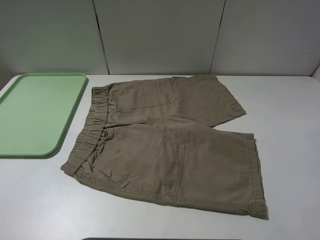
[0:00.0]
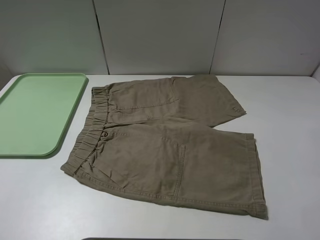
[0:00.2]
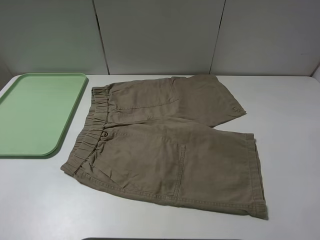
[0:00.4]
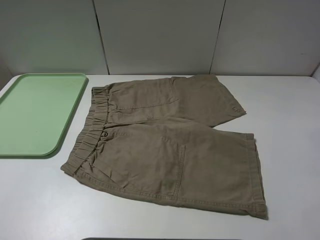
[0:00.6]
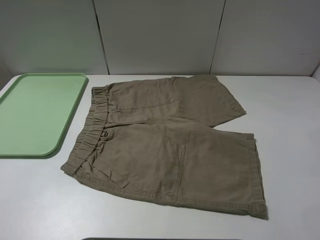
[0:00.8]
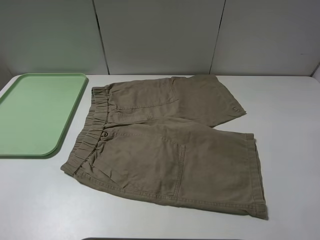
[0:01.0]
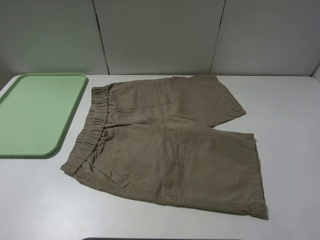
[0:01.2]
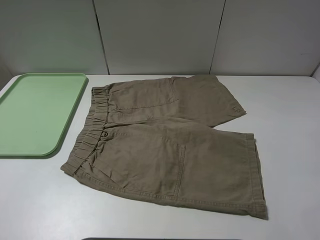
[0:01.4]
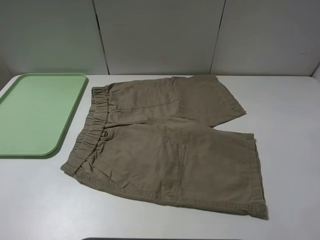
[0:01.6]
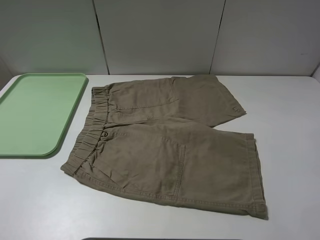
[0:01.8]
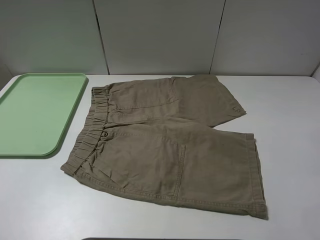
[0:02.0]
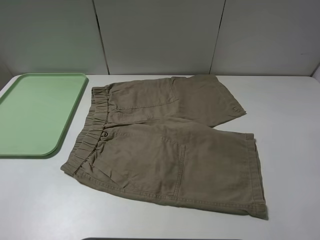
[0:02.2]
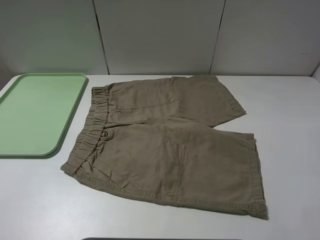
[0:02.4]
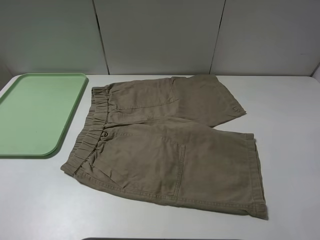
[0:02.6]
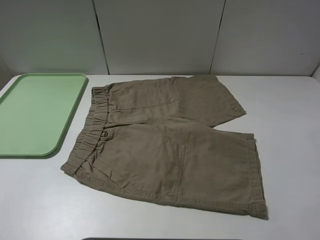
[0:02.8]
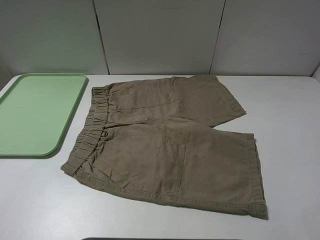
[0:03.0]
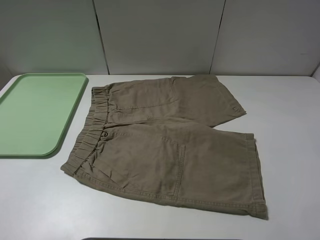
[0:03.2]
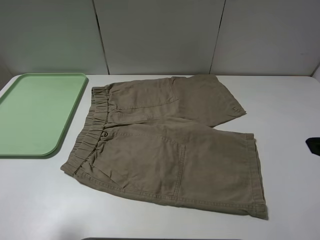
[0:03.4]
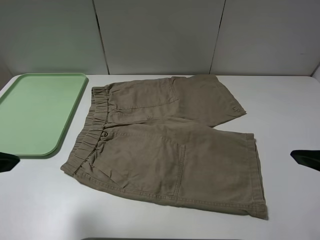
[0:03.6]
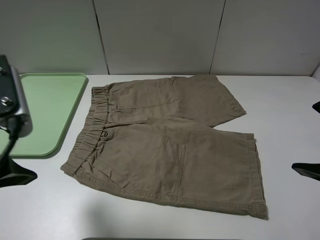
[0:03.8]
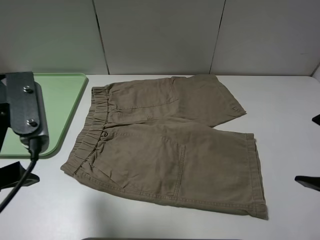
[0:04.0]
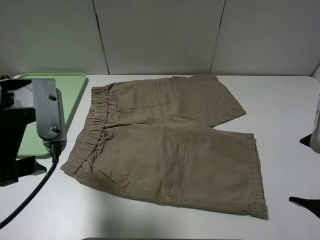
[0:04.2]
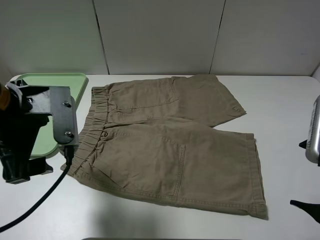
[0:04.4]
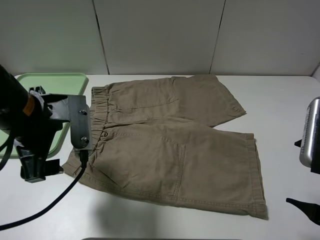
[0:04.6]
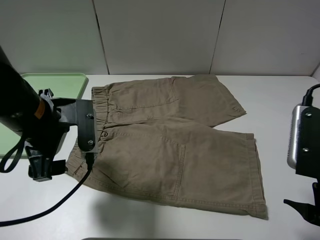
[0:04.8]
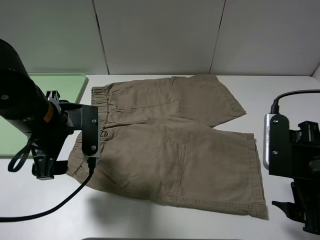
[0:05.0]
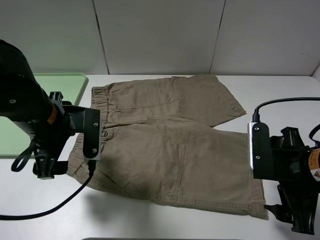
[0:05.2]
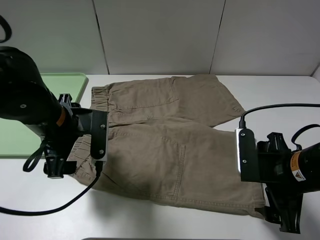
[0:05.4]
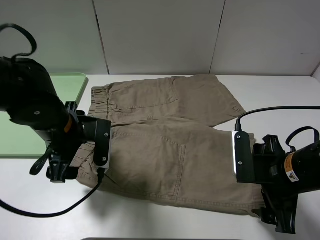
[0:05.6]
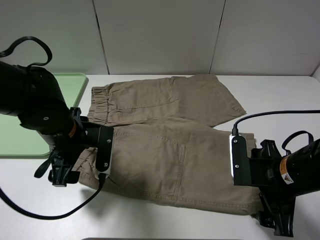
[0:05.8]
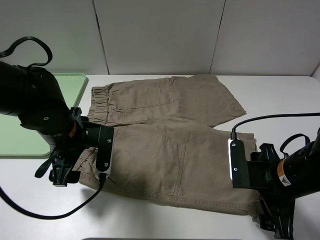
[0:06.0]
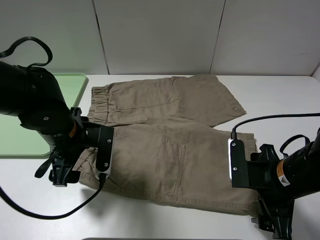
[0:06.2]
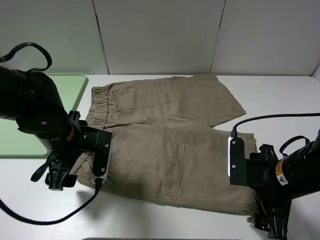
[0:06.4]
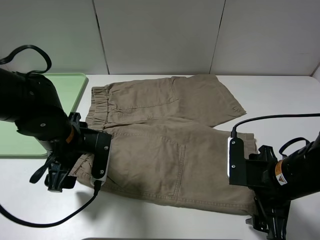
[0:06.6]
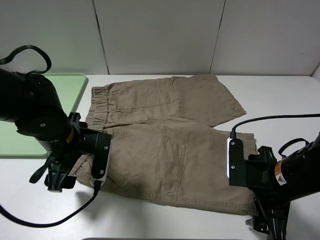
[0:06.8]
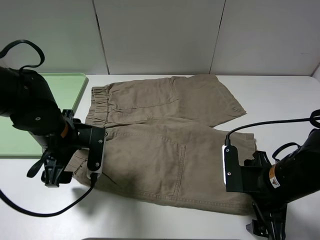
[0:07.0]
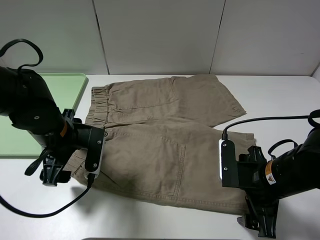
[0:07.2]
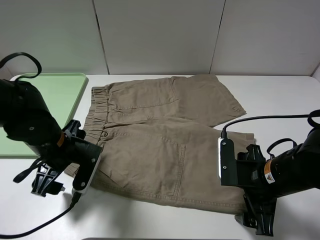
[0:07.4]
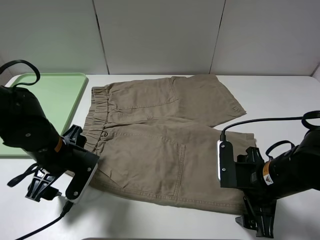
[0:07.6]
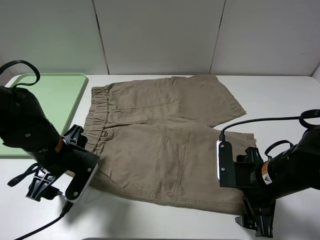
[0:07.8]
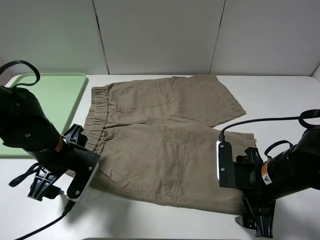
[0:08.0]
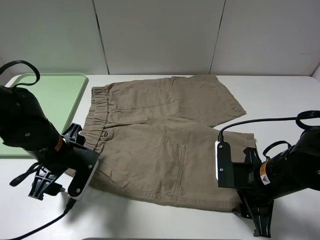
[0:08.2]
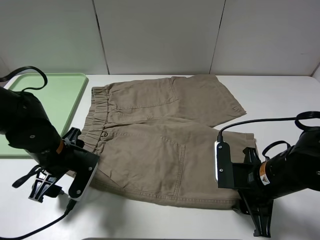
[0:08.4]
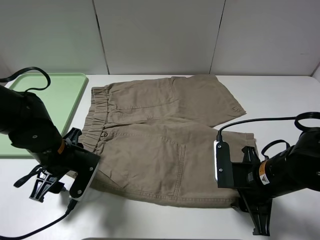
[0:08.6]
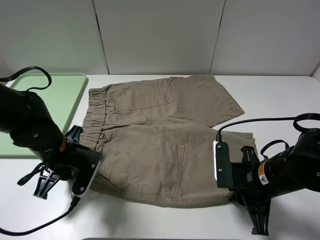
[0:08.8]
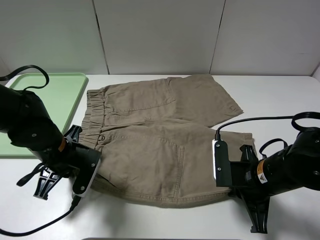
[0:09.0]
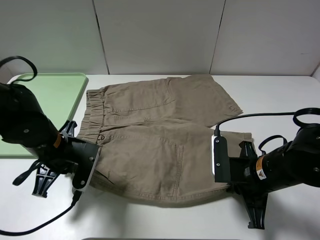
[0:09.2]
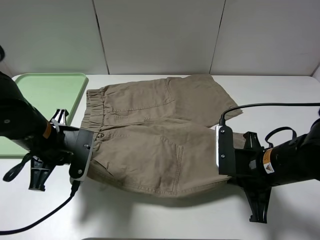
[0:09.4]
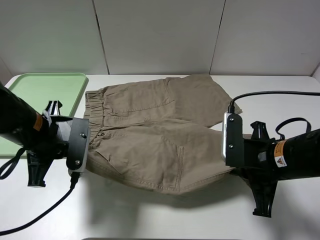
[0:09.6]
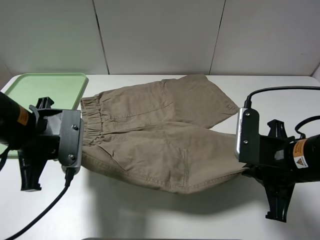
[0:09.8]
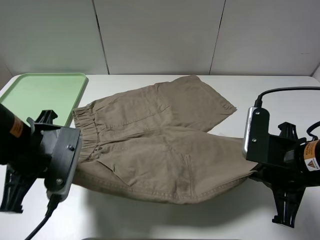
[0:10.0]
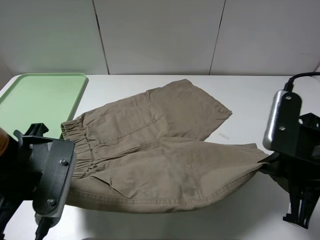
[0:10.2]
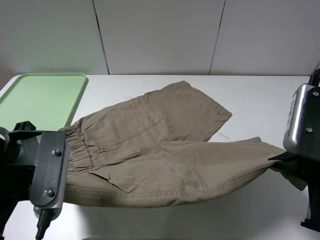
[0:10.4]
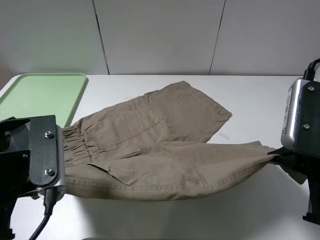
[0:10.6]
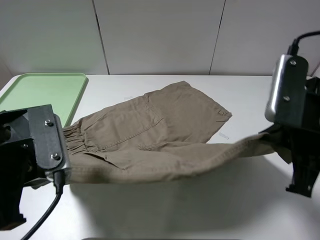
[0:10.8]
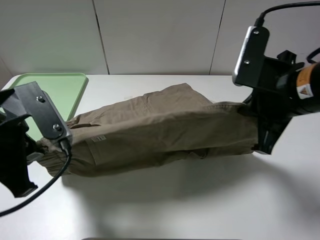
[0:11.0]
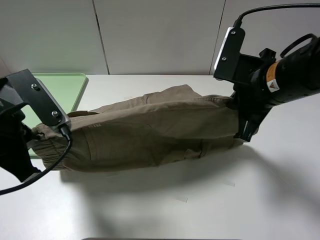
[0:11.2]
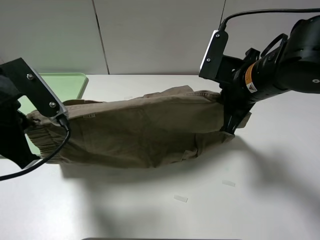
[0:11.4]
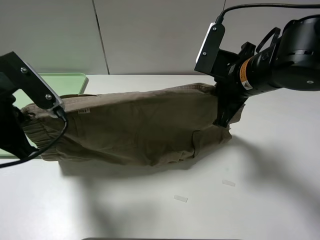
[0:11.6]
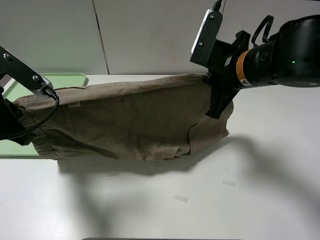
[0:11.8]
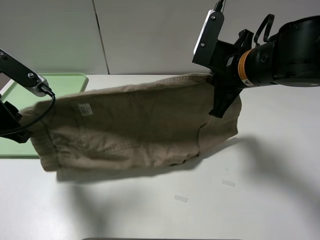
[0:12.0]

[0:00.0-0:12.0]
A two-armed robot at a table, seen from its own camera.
Task of the whole recording: fold the khaki jeans in half with two grippers, then fold them in half again, and use the left claw to place the folded fold khaki jeans on the tray.
Step, 0.0 to 9.0 s: Grasp the khaki trousers with the left gripper.
Step, 9.4 to 12.0 s: Fold the khaki trousers upwards with the left gripper.
0.0 to 1.6 s: Both grippers stay put.
3.0 to 4.4 s: The right gripper heads downward and forward, covering some 10 cm. The left gripper moves forward and to the right, roughly 20 cm.
4.4 to 6.0 s: The right gripper goes some 10 cm downward and forward, while the left gripper travels downward by roughly 10 cm.
7.6 to 9.0 s: The left gripper closes up, while the right gripper closes.
9.0 to 10.4 s: Both grippers move upward and backward, roughly 15 cm.
10.4 to 12.0 s: The right gripper moves forward and to the left, some 20 cm. The left gripper goes about 10 cm to the left and forward, and opens up.

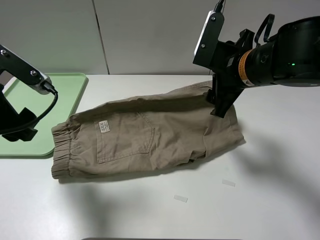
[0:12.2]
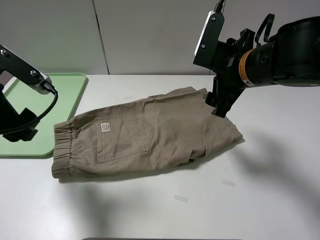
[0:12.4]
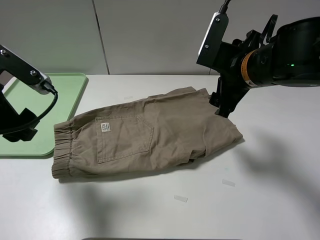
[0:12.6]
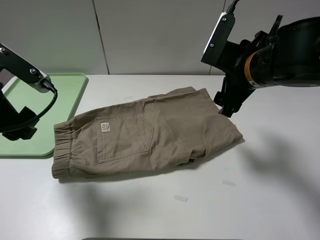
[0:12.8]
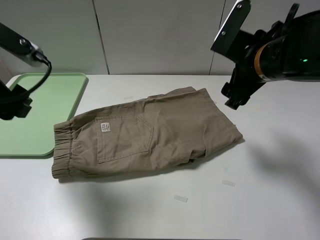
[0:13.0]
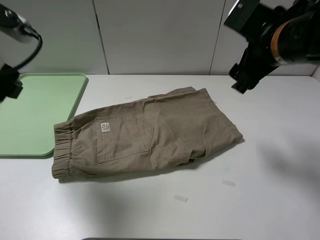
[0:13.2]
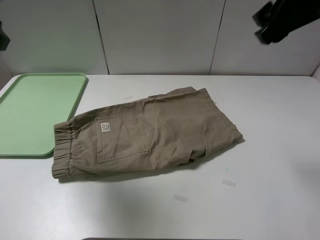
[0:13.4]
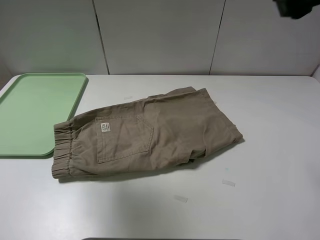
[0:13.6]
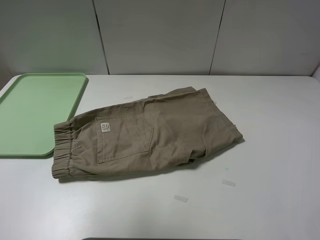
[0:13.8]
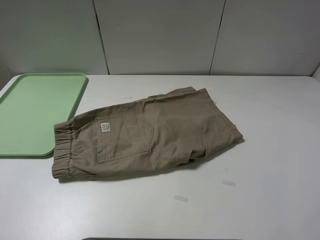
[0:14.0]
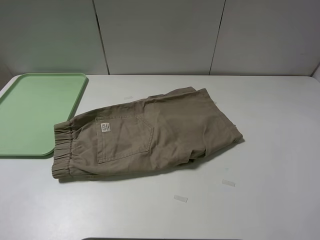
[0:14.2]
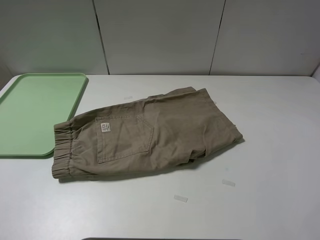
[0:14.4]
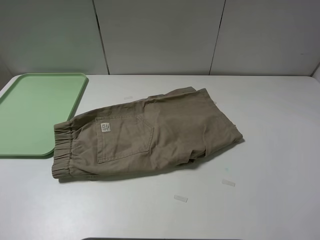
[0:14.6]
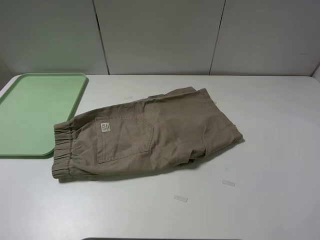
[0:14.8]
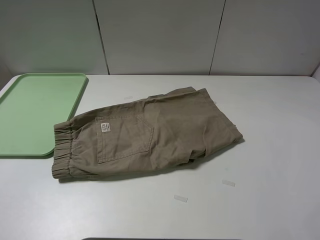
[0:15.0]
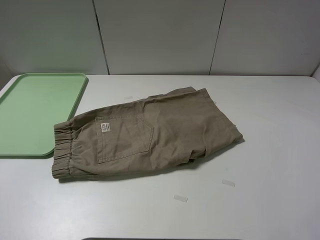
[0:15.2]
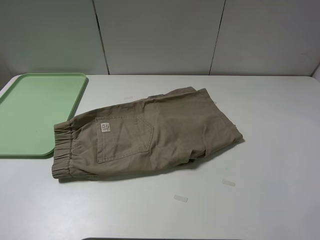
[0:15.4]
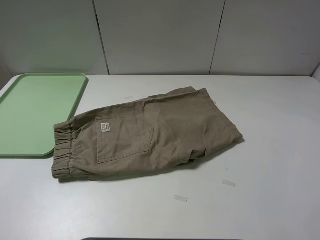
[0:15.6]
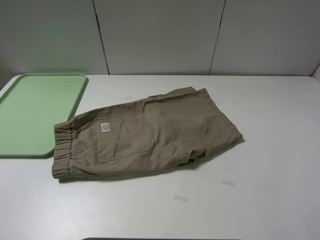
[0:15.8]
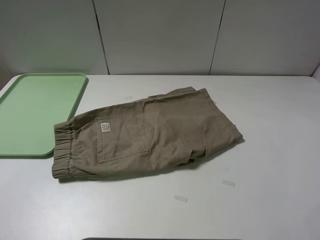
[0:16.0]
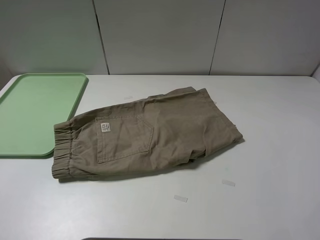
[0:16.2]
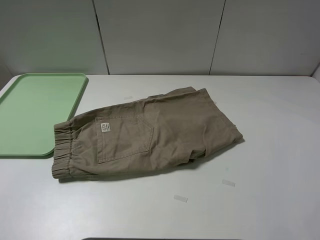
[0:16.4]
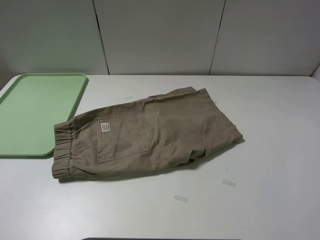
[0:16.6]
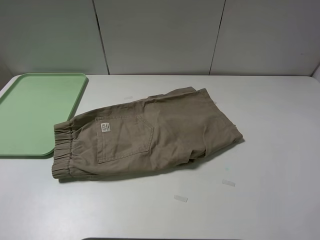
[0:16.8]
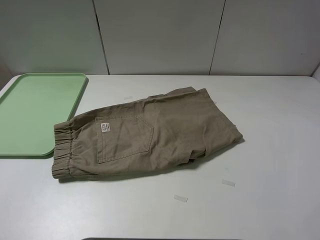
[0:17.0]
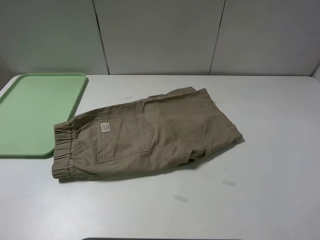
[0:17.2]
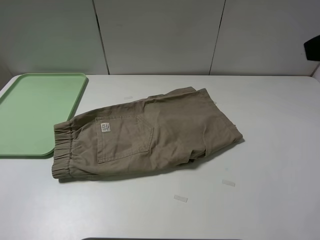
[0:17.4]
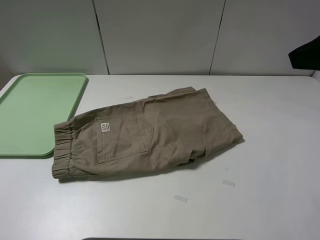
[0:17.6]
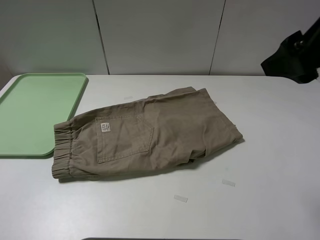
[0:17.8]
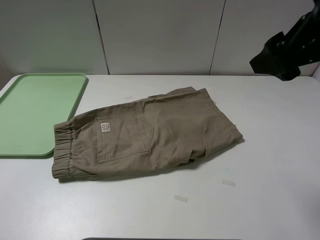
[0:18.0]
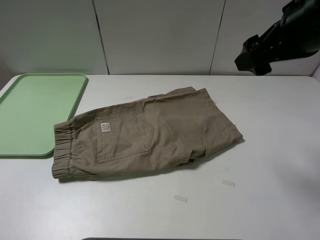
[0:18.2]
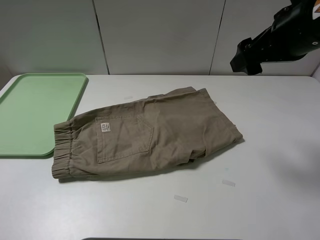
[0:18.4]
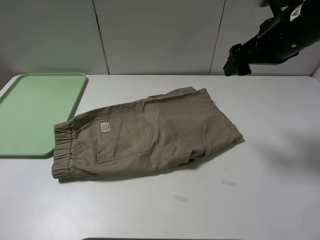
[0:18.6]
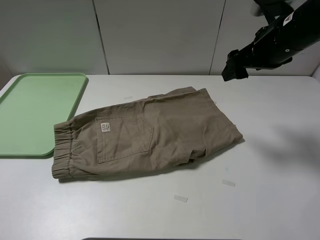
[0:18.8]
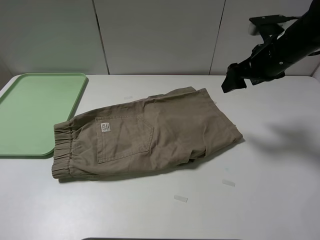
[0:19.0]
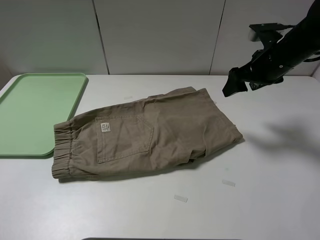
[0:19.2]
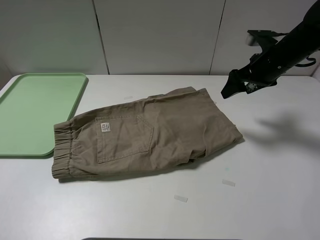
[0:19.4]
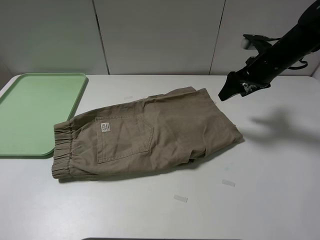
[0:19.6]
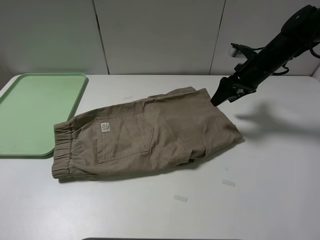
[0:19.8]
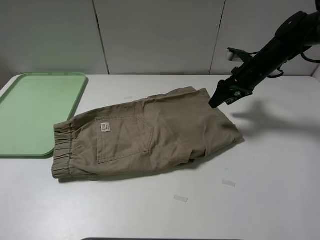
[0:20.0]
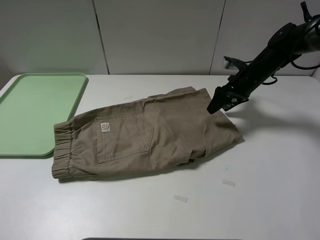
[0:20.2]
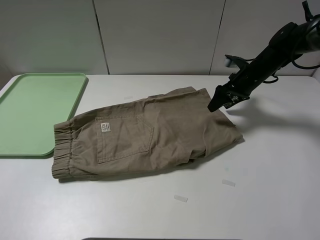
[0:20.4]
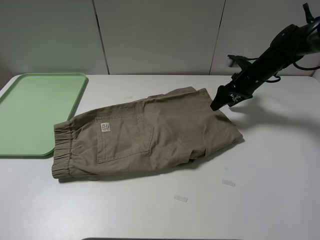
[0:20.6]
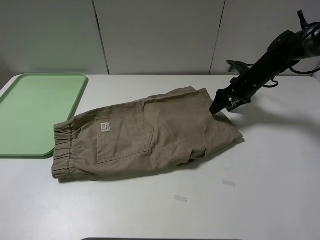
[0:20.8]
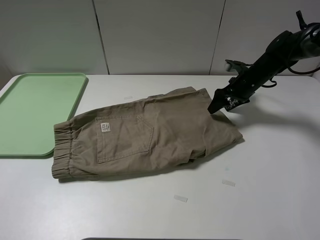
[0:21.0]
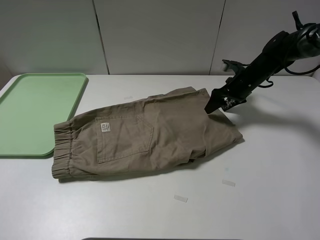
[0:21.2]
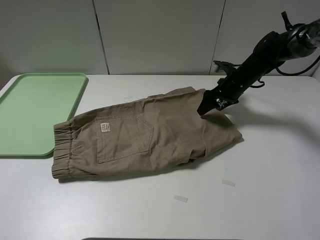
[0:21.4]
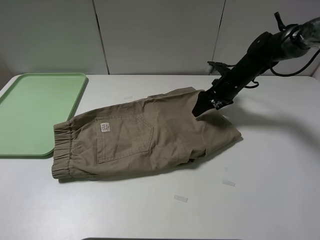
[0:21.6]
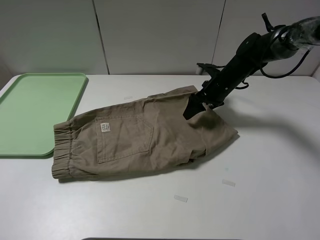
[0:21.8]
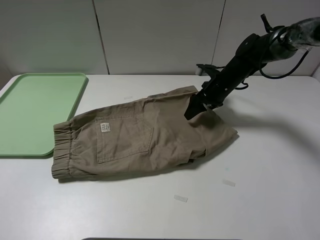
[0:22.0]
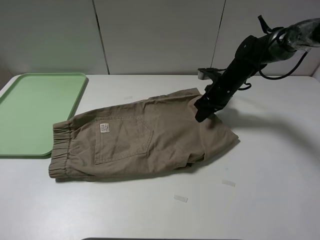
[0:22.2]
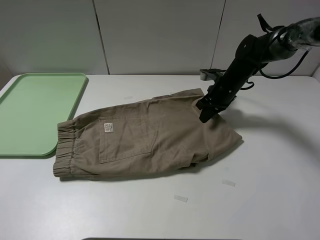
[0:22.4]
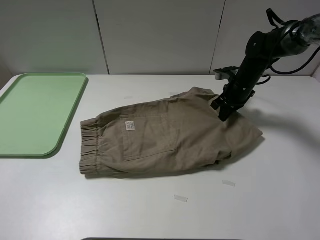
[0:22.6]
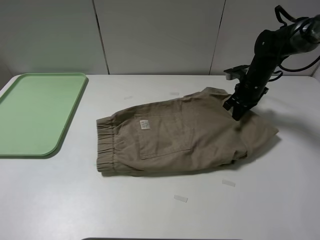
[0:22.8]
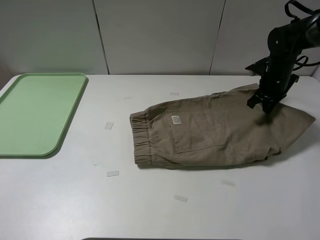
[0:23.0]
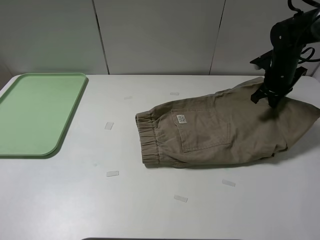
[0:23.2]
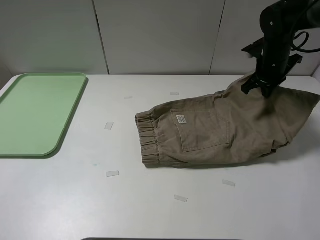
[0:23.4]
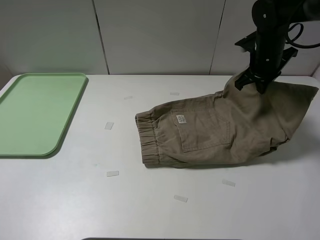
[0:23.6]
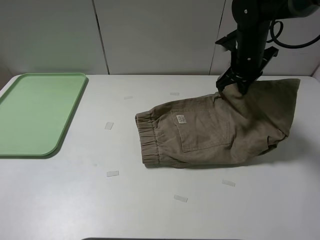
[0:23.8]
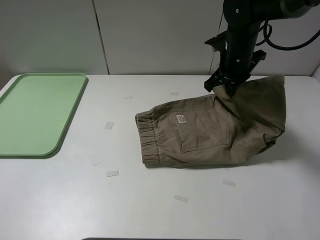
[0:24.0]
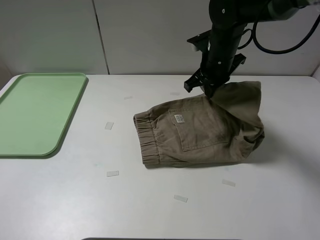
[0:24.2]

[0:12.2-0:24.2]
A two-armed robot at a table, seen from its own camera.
Task of the whole recording: fold the khaki jeans in half with two grippers, then fold them in half again, and use the left claw to place the folded fold khaki jeans on the tray.
Step, 12.2 to 22.4 s: Grasp the khaki trousers with the right gripper.
12.2 to 13.8 s: The right gripper travels upward, backward and to the right by about 25 cm. The left gripper goes about 20 cm upward.
13.8 to 15.2 s: The left gripper shifts roughly 20 cm downward and backward, while the right gripper travels backward by roughly 5 cm.
16.6 to 18.2 s: The right gripper goes some 15 cm forward and downward.
18.2 to 19.8 s: The right gripper moves forward and downward, roughly 25 cm.
19.8 to 21.2 s: The right gripper heads downward, covering approximately 5 cm.
21.2 to 22.6 s: The right gripper closes up.
22.6 to 24.2 s: The right gripper is displaced to the left, upward and backward by roughly 15 cm.
